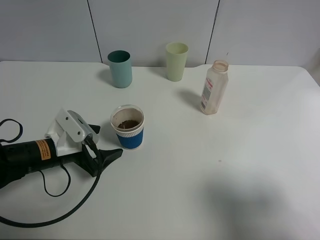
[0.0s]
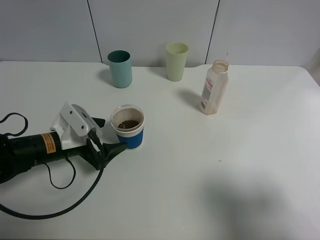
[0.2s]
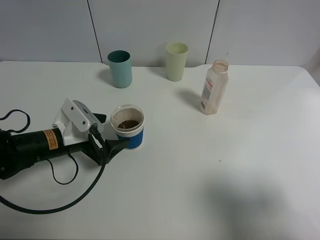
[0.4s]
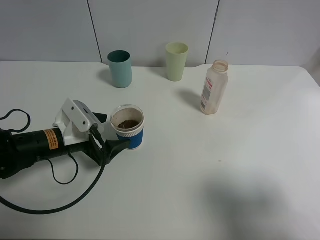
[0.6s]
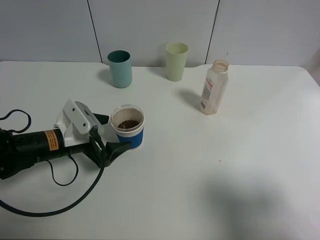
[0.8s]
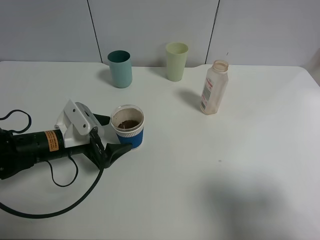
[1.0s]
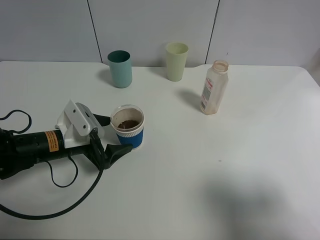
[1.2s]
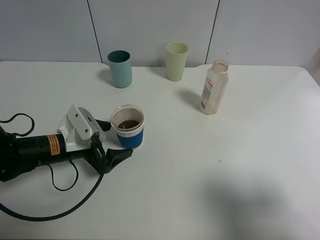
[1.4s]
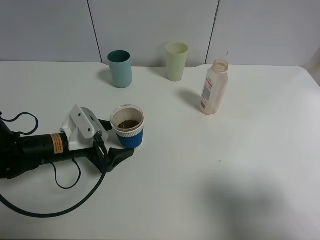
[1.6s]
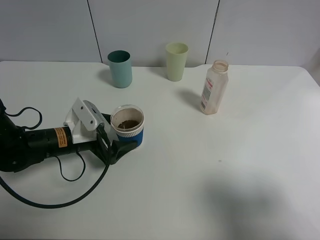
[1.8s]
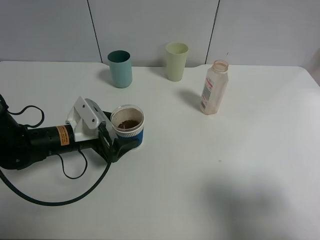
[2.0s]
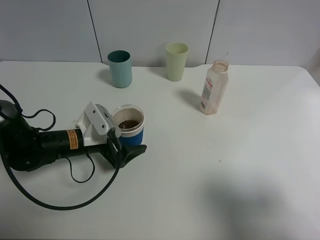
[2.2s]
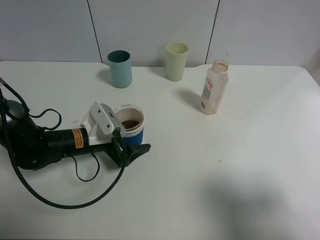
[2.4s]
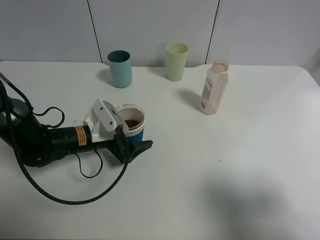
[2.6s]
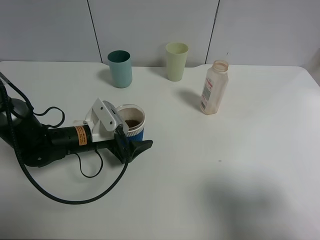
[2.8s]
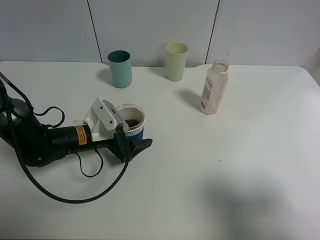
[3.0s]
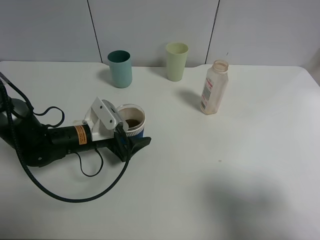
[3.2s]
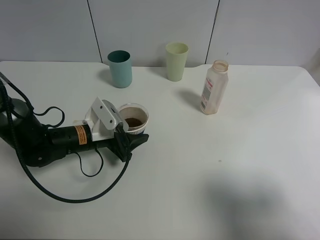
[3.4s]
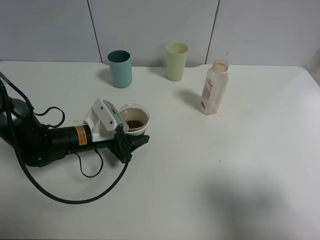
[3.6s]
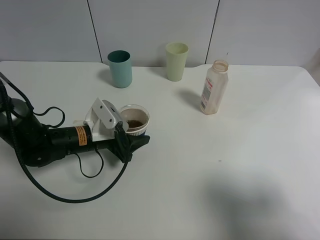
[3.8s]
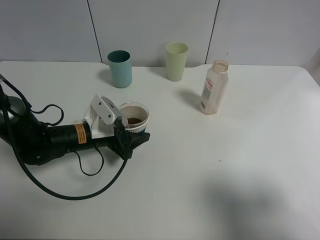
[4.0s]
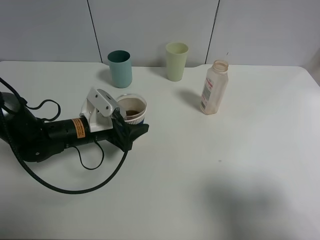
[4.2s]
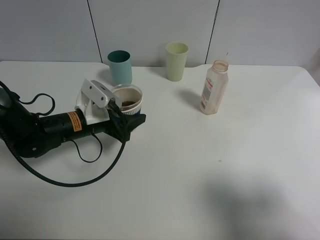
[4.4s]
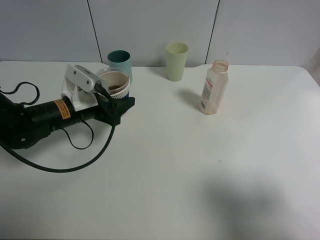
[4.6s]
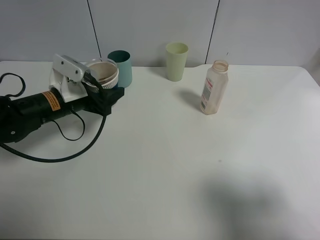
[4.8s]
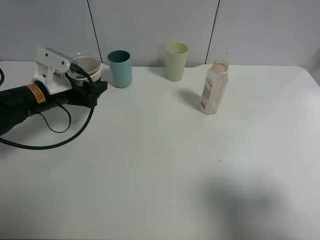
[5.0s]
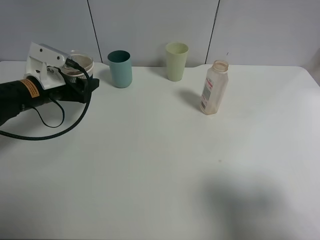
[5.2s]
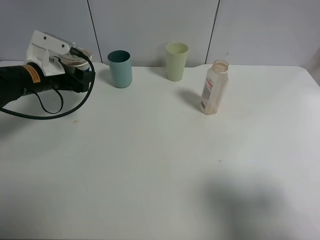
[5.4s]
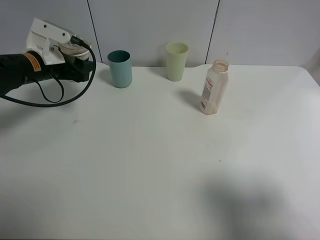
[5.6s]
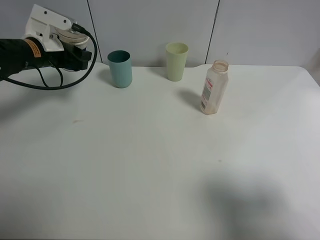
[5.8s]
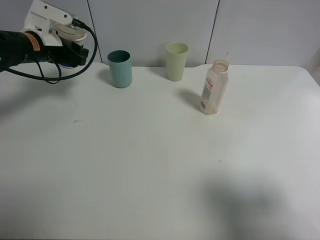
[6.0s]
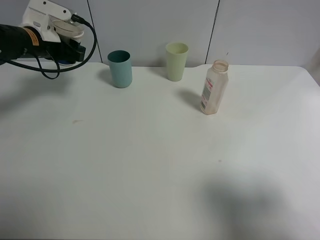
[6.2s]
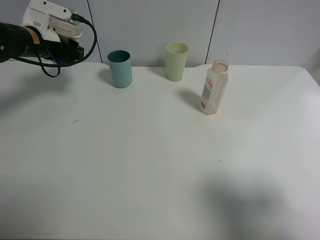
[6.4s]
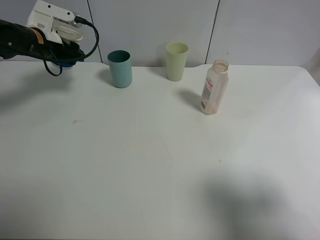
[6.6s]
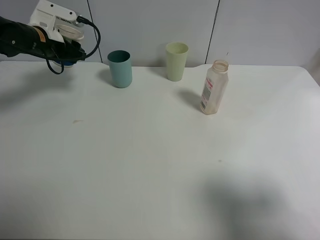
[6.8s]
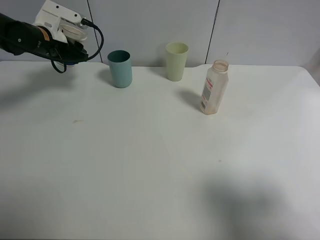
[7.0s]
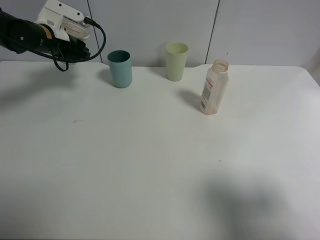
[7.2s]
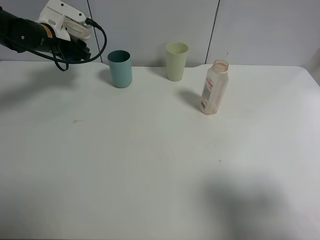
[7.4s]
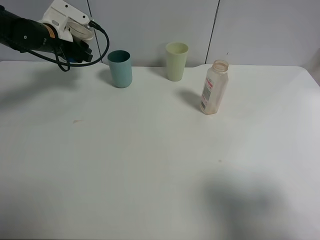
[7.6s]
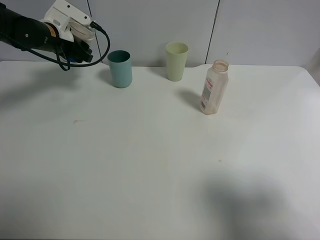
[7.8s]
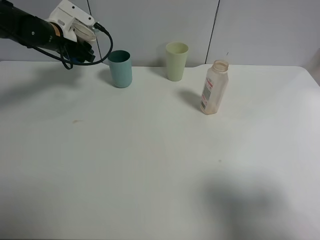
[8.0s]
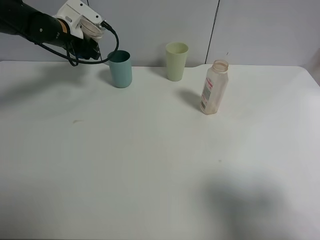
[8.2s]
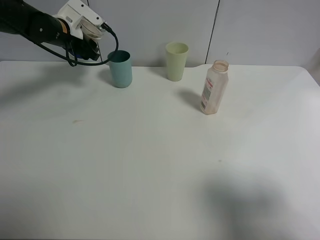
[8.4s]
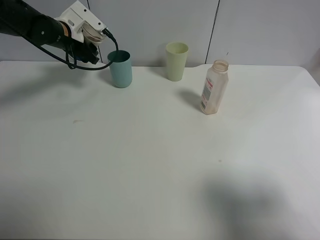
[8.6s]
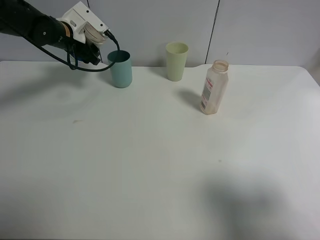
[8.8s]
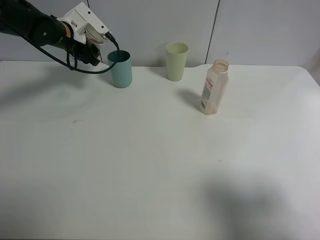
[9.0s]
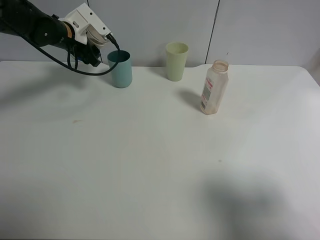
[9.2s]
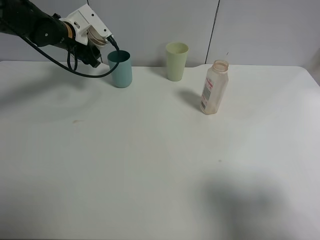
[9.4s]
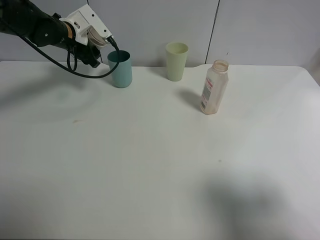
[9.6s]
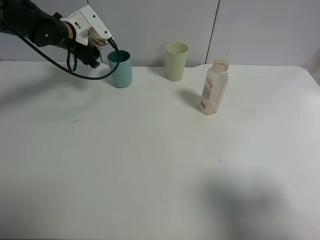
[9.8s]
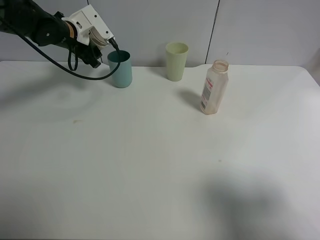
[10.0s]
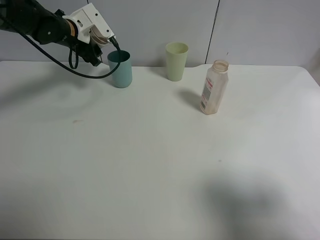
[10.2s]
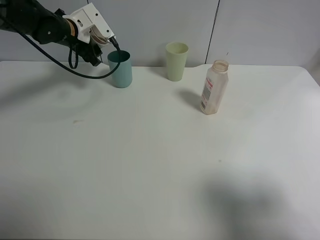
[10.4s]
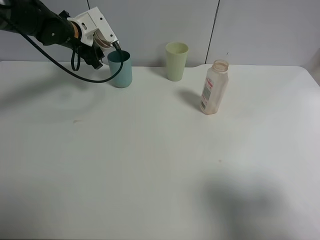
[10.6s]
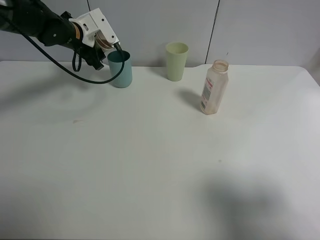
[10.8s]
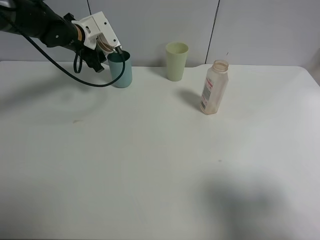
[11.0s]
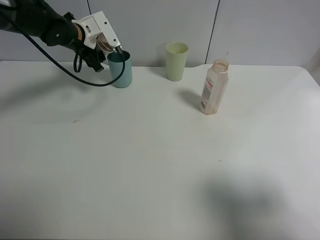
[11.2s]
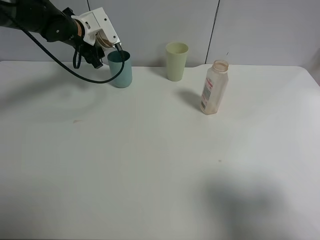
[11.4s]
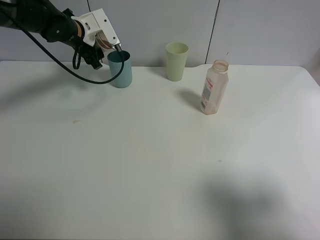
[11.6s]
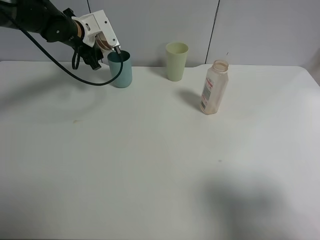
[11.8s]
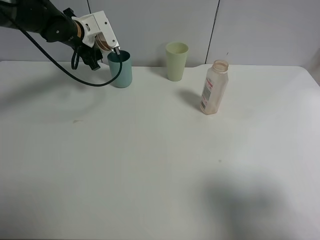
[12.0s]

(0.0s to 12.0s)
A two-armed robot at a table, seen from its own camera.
Task of the whole recording: use a clamp to hold the bottle of the drink, pour the beverage into a random cup, then clamp the cup containing the drink and pour the drink into another random cup.
Step, 0.0s - 5.2s: Pick up the paper cup with left gripper.
0.0s - 1.6s: The grippers move only a little.
1.6s - 3.0s: The grippers make only small movements.
3.0s - 4.4s: The left gripper closes its fingers.
4.4s - 6.0s: The left gripper heads forward, upward and to the left, covering approximately 20 cm.
6.0s - 7.6s: The left gripper heads forward, covering roughly 5 cm.
7.6s - 9.0s: There are only small adjustments of the grippers.
9.0s - 10.4s: The grippers make only small movements.
10.4s - 12.0s: There are only small adjustments of the grippers.

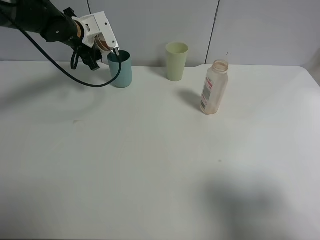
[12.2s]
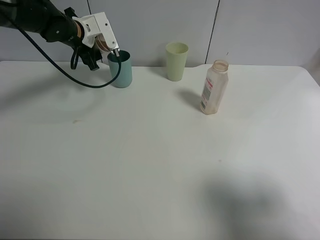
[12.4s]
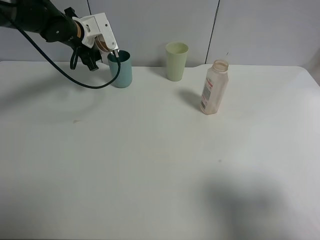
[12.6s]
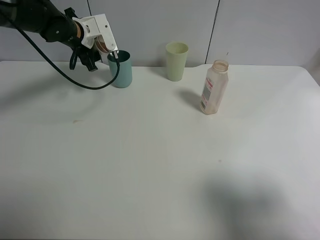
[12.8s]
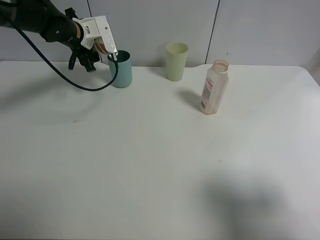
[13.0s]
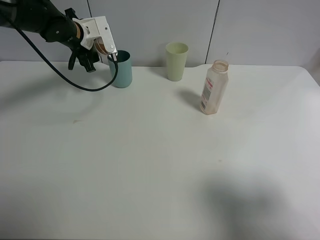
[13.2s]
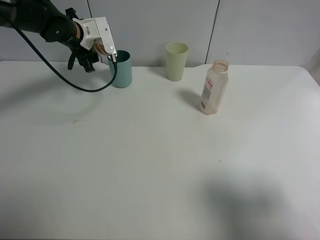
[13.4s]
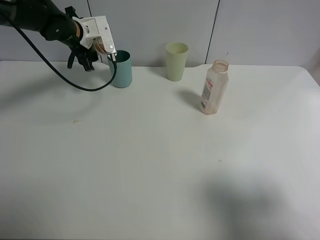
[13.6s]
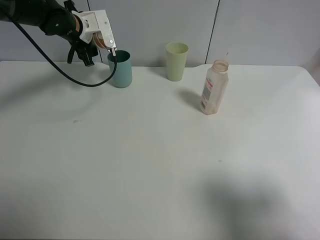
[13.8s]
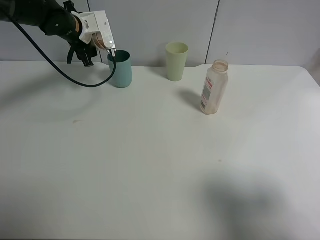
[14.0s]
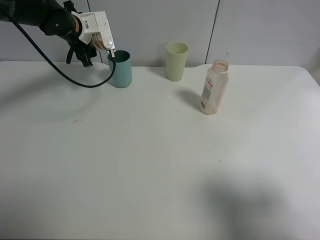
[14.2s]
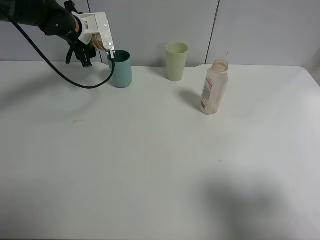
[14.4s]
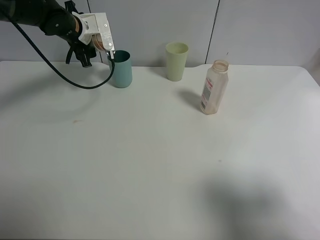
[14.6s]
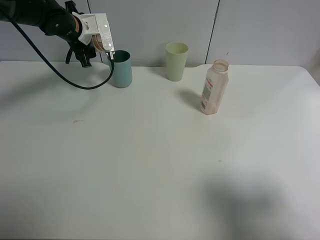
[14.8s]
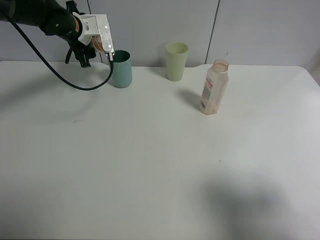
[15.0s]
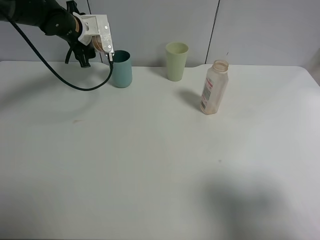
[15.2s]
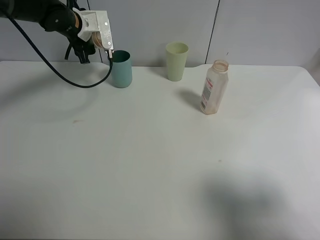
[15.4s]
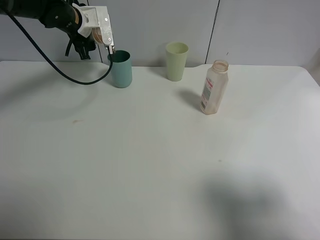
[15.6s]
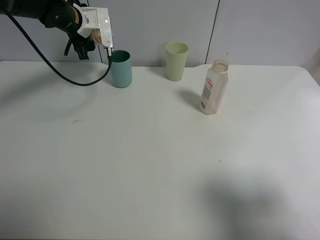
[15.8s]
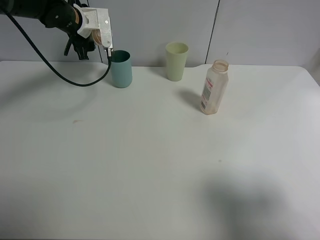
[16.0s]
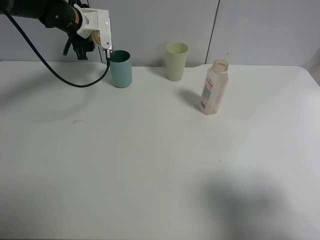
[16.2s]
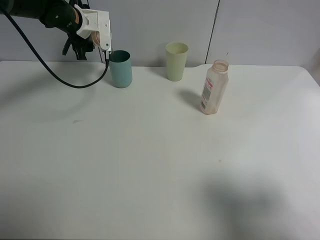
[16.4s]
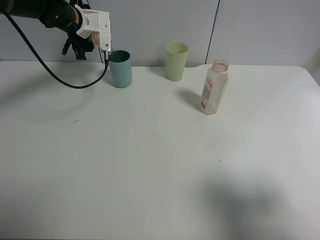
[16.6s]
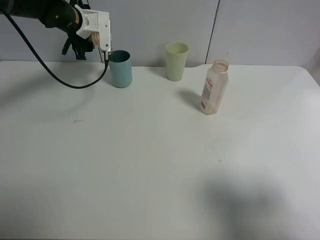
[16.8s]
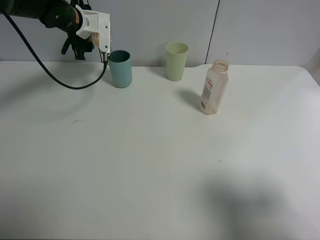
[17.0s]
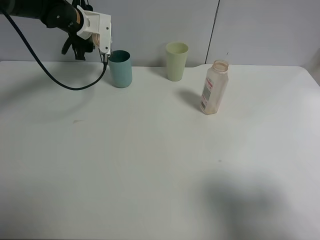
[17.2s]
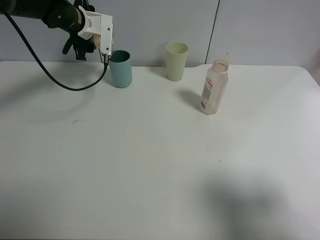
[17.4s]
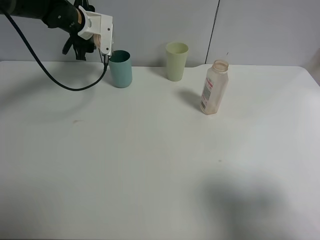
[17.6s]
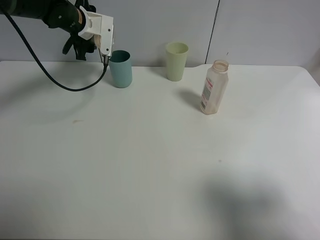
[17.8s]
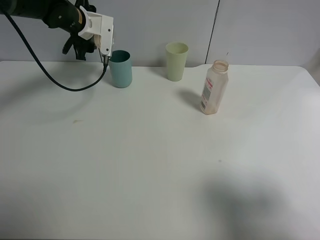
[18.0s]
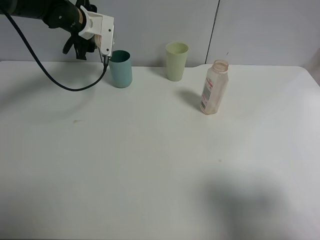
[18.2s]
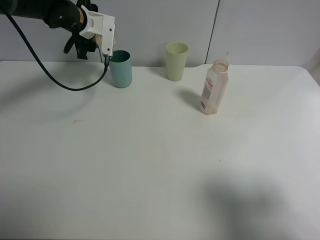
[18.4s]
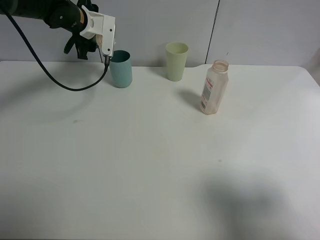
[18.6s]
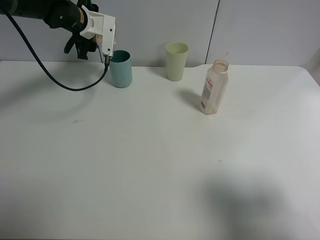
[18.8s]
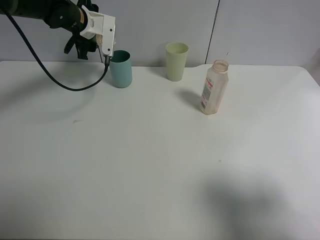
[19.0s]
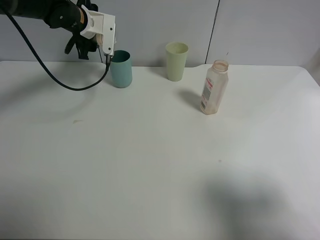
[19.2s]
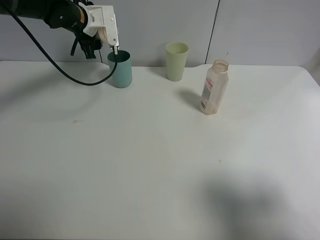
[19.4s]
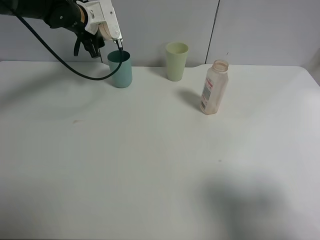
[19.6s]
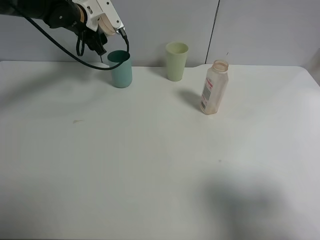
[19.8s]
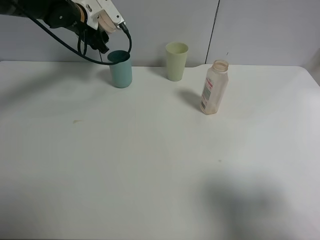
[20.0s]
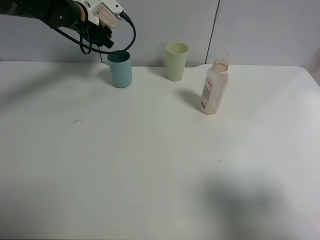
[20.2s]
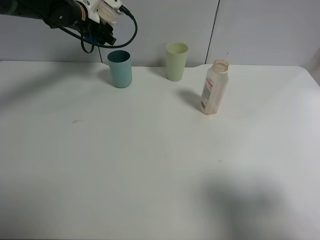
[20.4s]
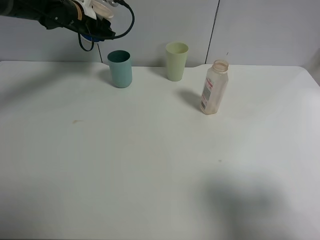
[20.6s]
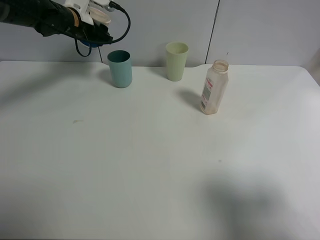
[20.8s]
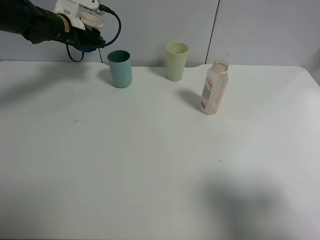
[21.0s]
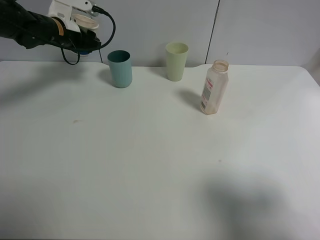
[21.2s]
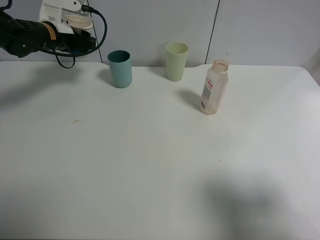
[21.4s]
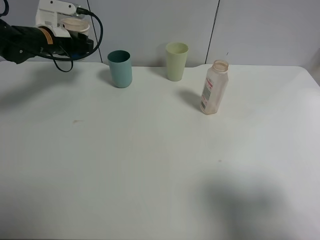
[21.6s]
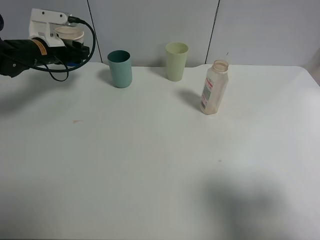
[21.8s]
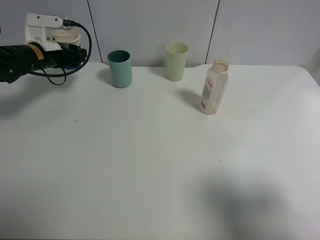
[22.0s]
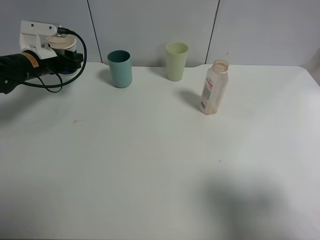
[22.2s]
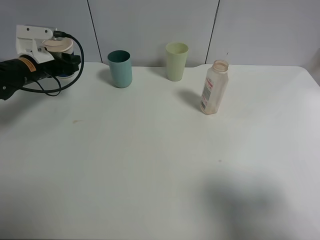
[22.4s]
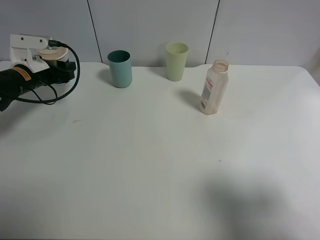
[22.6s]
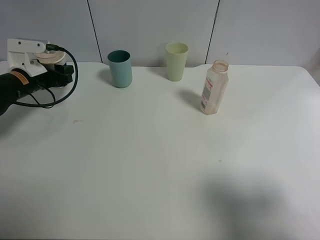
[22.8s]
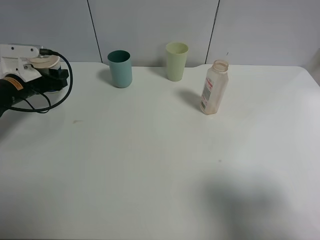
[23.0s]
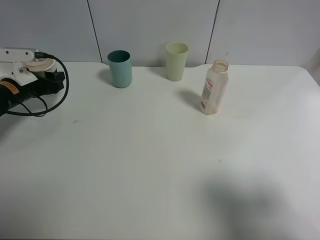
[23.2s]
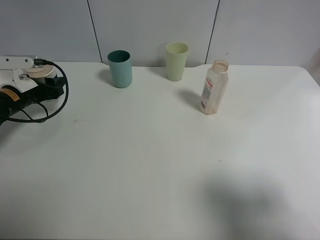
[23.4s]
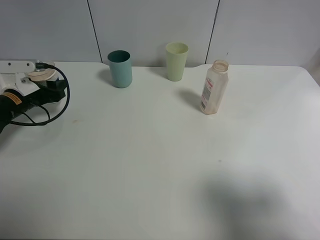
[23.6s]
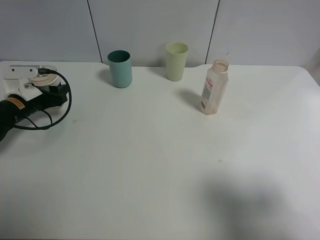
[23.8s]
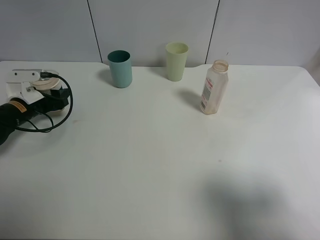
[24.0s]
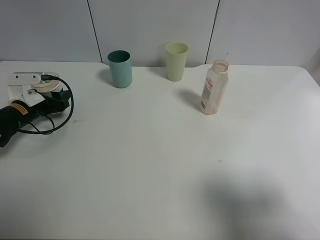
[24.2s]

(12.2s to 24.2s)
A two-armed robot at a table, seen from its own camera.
Task of the whole recording: use a clamp to hold the bottle of the drink, pour the beverage into a random cup, then clamp the cup containing the drink and pour the drink into another random cup.
Step, 12.2s - 22.0s: Pour the drink into the blue plastic cup with left gripper.
12.2s - 15.2s: The grippers move only a little.
15.2s - 18.2s: The grippers make only small movements.
19.8s - 21.2s: The left gripper changes place by about 5 cm.
21.2s - 22.6s: The left gripper shifts some 15 cm backward, to the left and downward.
22.6s - 24.2s: The left gripper shifts about 5 cm downward.
